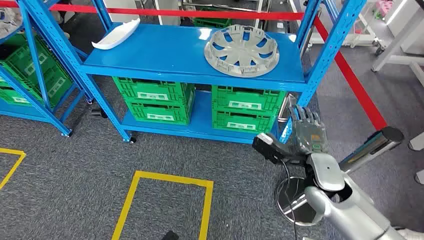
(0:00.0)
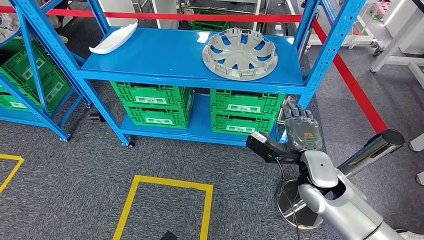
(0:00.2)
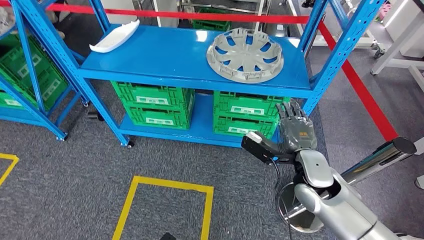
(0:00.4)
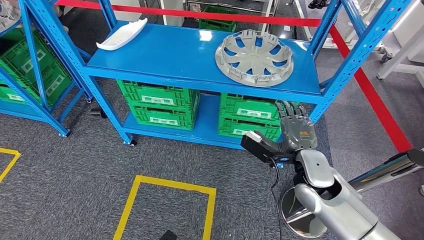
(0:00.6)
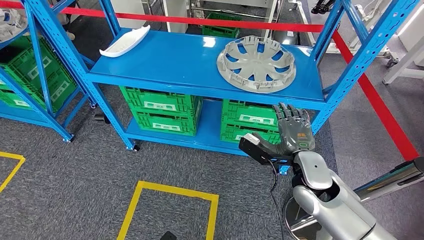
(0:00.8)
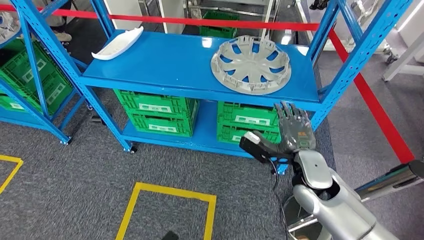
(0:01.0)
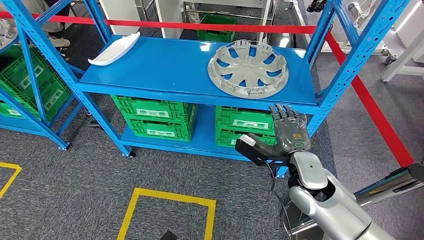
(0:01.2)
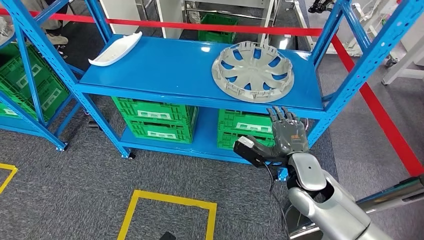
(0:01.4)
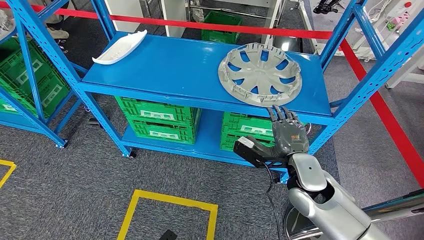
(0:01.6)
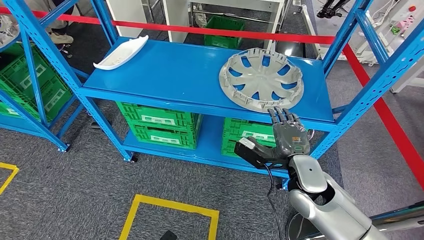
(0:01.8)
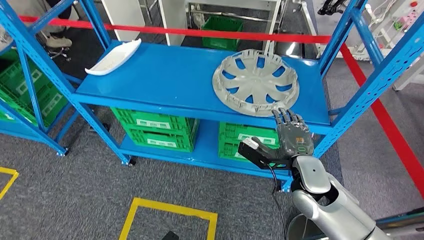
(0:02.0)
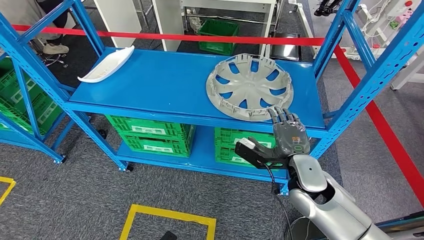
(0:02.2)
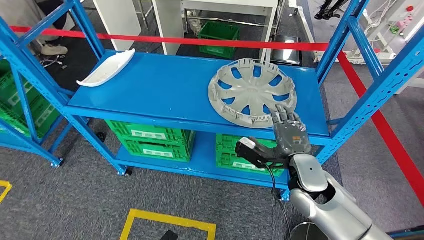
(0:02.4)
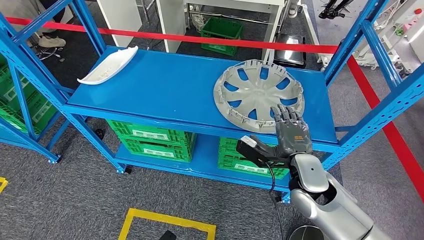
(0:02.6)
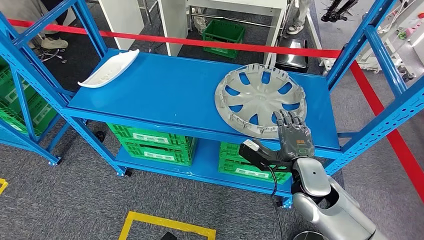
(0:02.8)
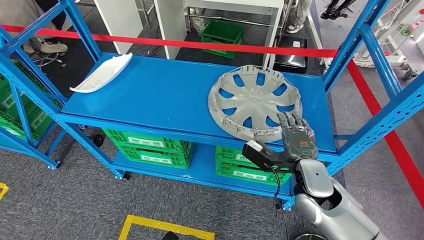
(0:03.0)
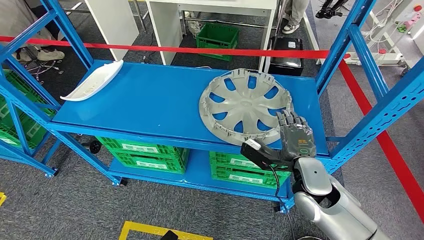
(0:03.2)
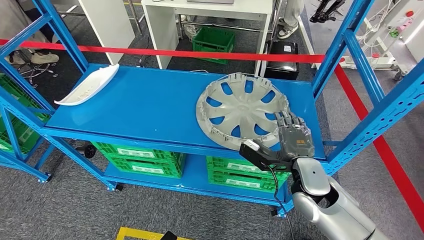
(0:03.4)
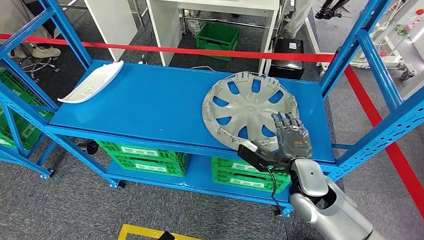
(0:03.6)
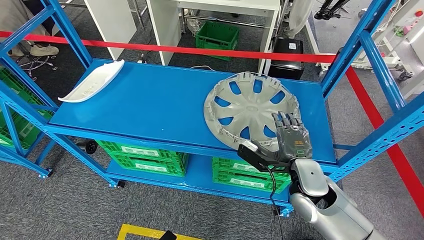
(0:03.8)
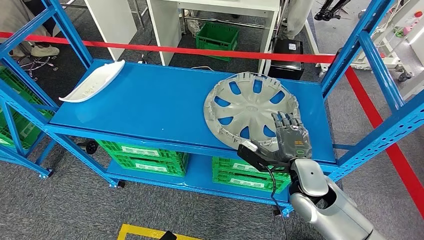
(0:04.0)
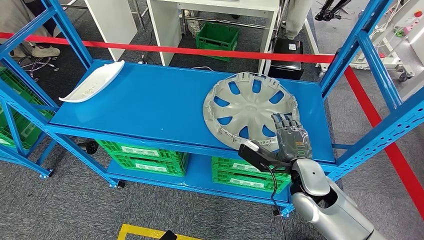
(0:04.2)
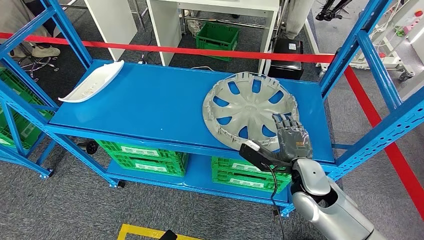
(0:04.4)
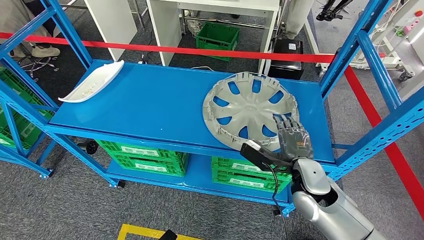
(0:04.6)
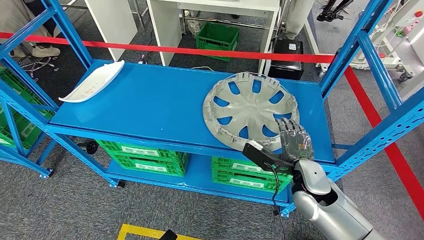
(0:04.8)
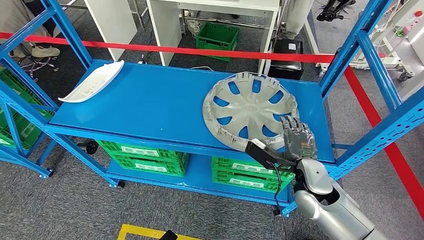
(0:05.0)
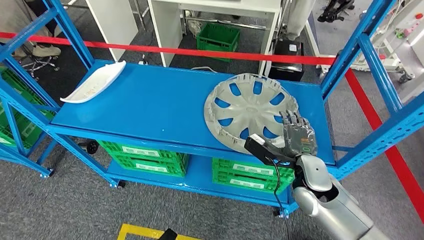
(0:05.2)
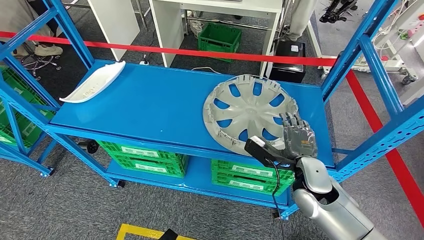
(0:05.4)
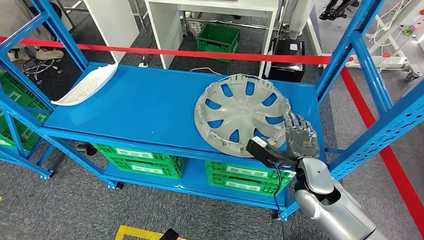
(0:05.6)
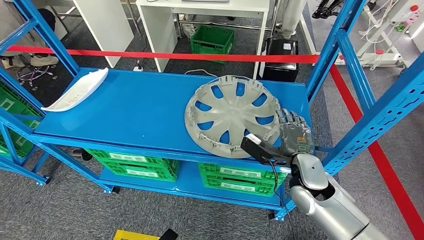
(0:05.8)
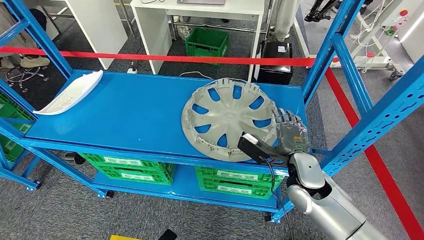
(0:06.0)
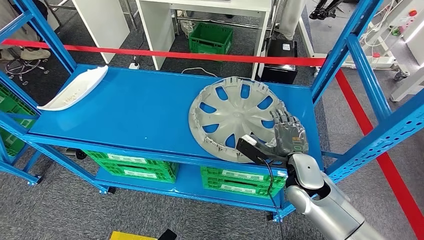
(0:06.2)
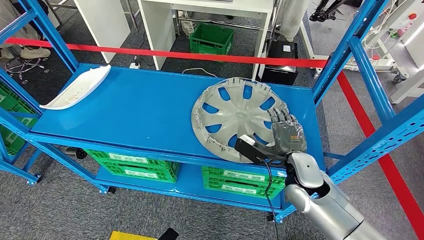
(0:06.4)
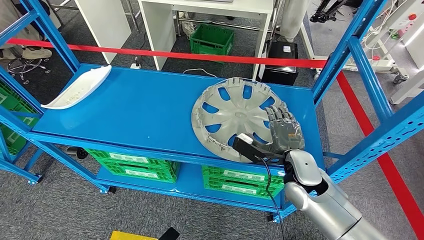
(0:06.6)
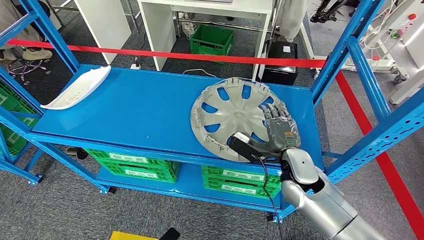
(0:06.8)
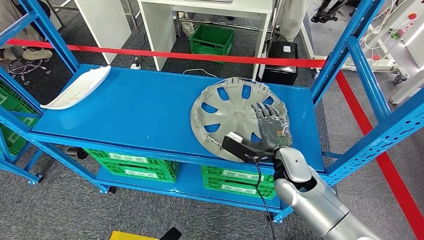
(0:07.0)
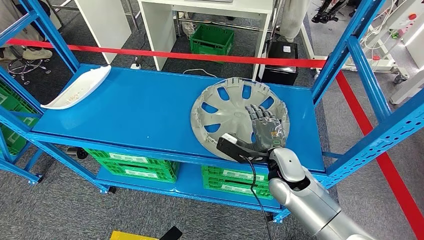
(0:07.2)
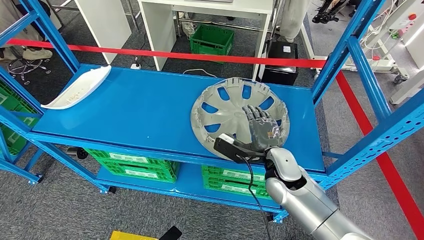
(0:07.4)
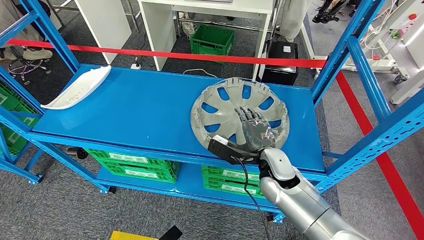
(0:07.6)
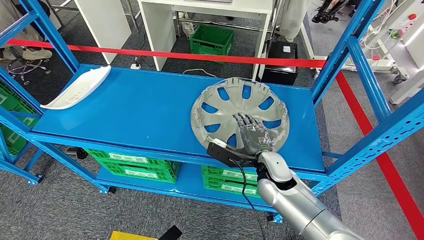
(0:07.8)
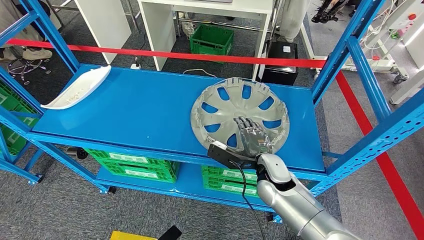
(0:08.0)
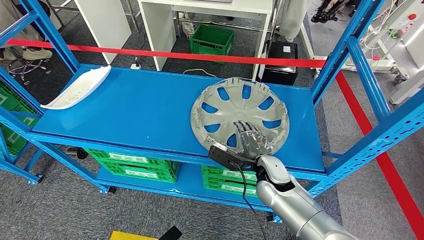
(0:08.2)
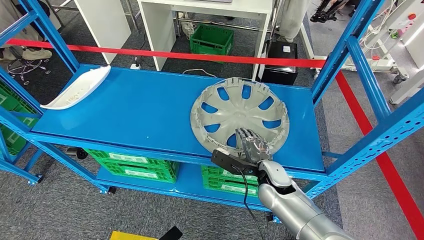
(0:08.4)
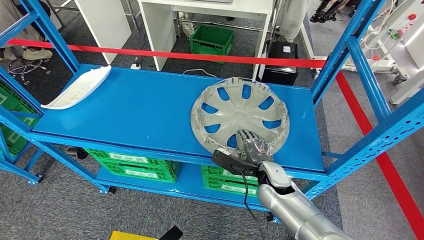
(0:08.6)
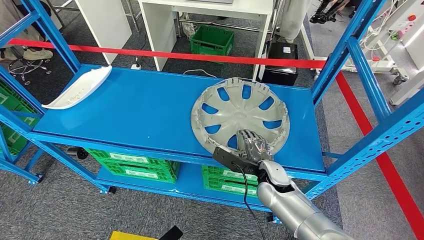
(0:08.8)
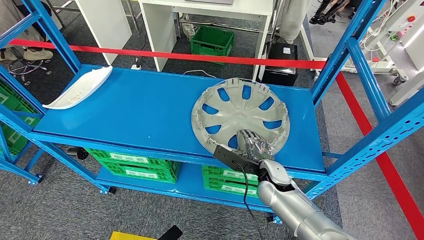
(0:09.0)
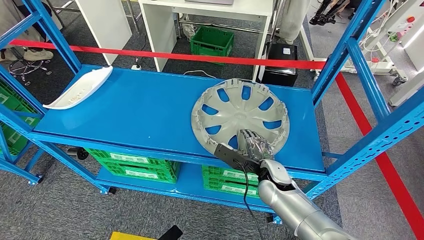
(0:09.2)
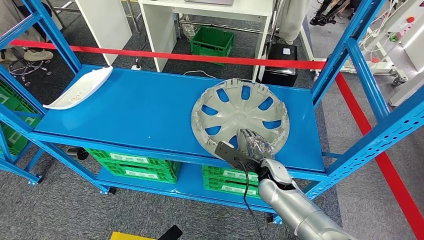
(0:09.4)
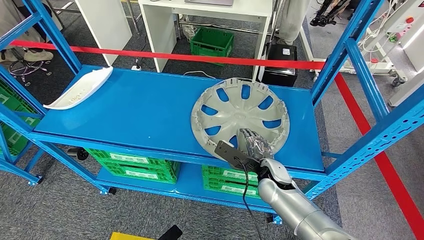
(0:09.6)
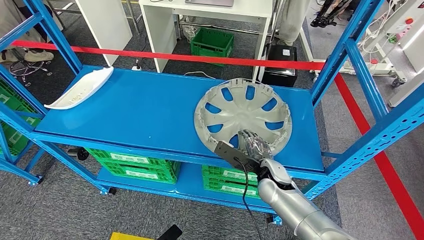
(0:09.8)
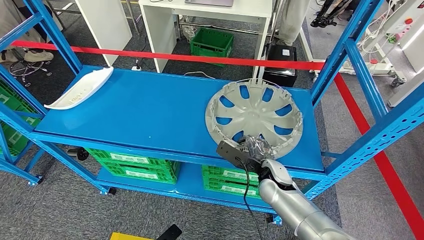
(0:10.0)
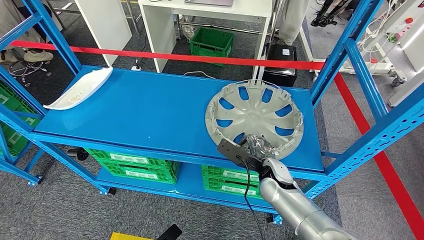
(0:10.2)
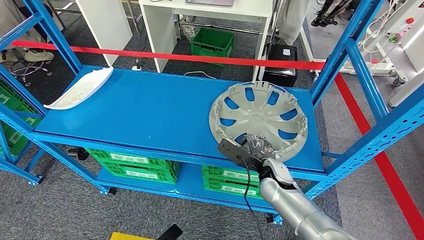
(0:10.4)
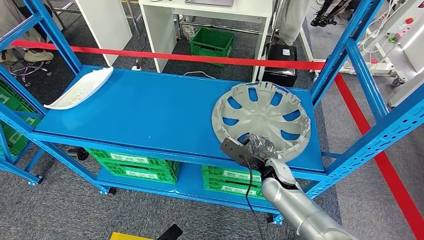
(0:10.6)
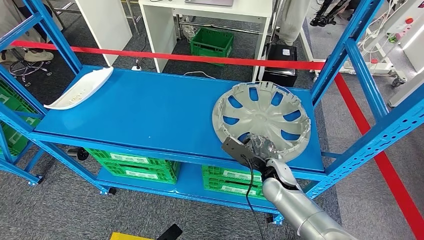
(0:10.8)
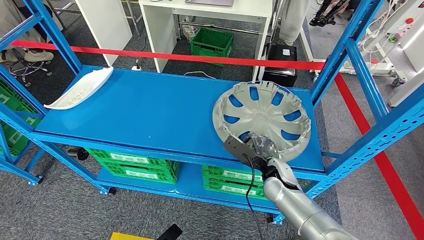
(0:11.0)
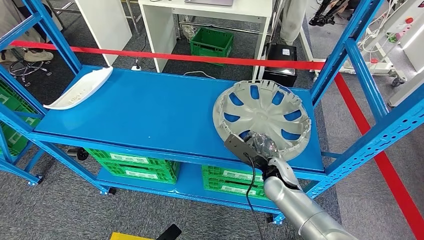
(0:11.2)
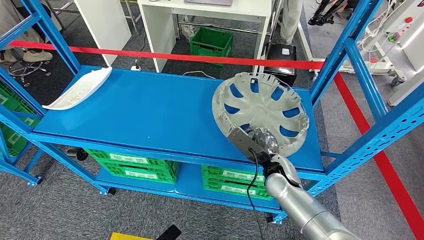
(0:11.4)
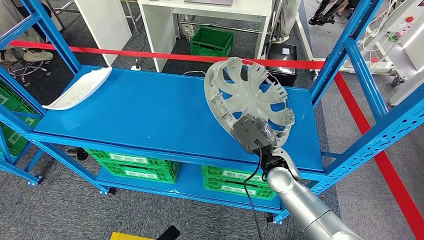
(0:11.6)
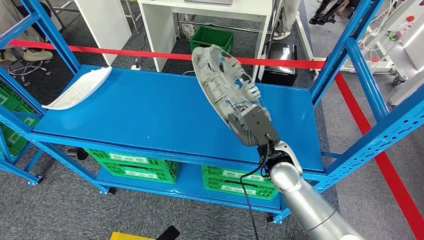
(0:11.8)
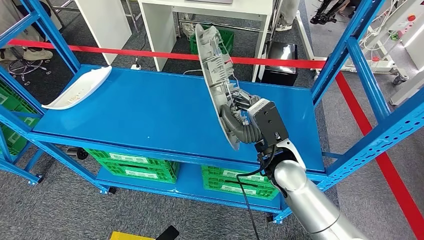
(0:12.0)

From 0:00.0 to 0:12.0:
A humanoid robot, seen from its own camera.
From 0:07.6 to 0:09.0: The right hand is displaced downward by about 5 cm.
From 0:09.0 to 0:10.4: The hands move only a little.

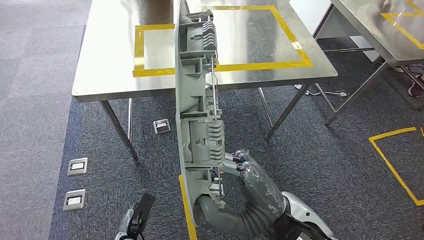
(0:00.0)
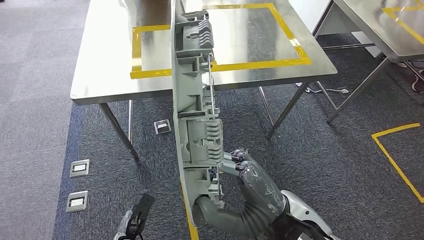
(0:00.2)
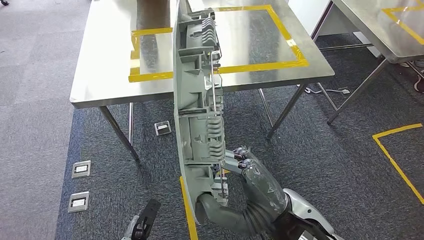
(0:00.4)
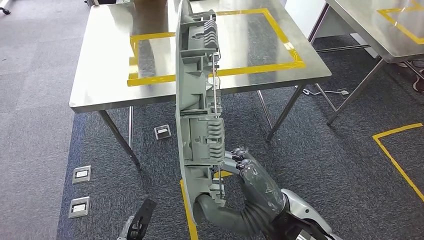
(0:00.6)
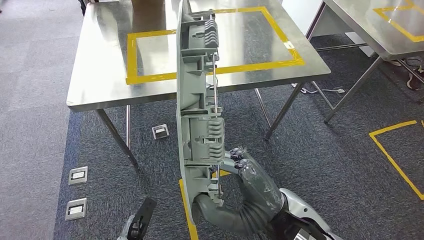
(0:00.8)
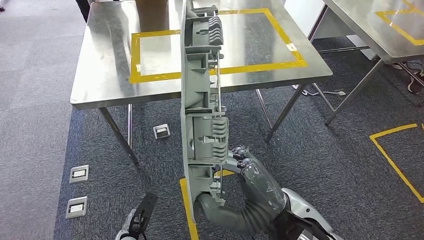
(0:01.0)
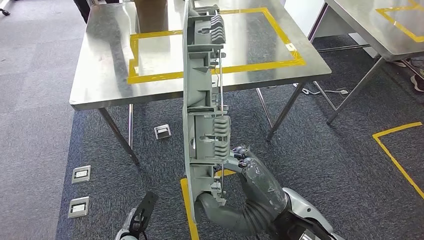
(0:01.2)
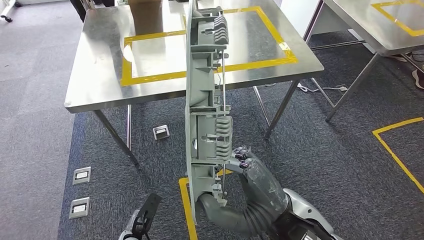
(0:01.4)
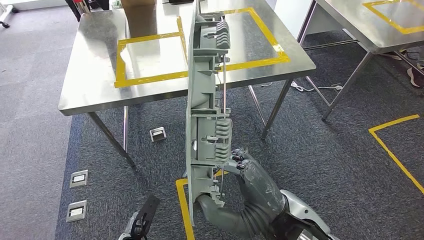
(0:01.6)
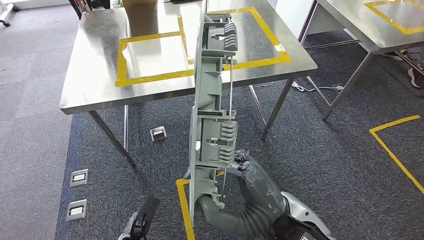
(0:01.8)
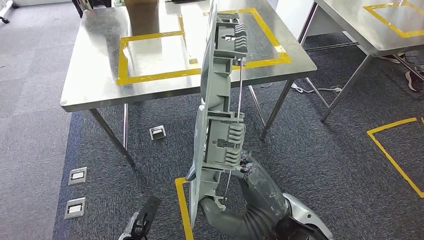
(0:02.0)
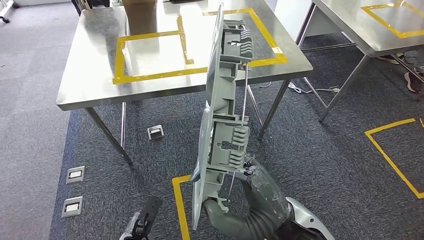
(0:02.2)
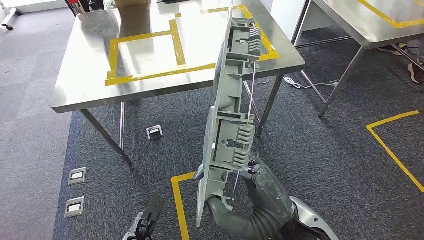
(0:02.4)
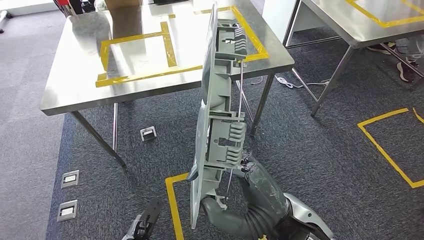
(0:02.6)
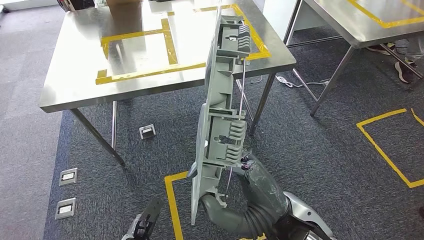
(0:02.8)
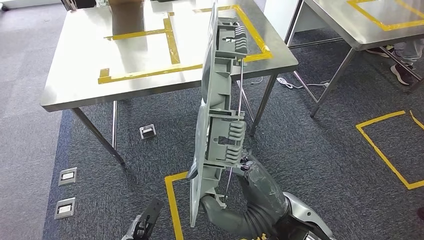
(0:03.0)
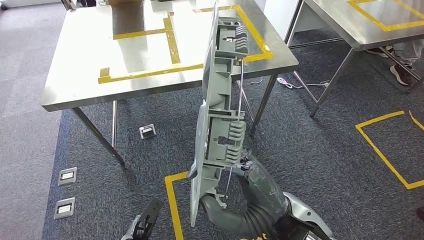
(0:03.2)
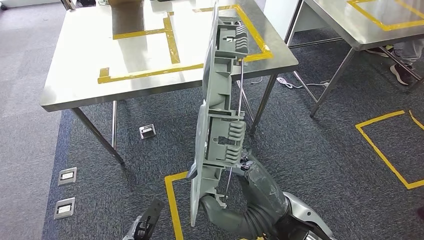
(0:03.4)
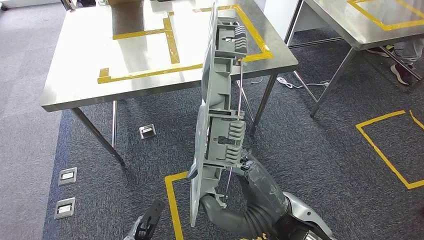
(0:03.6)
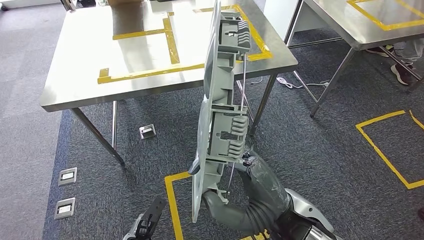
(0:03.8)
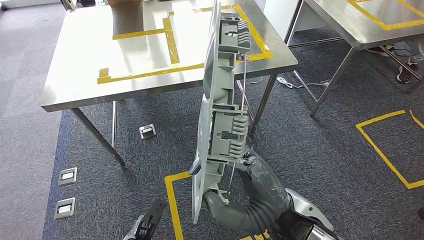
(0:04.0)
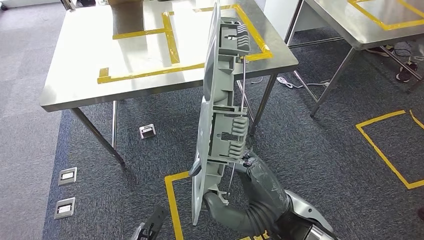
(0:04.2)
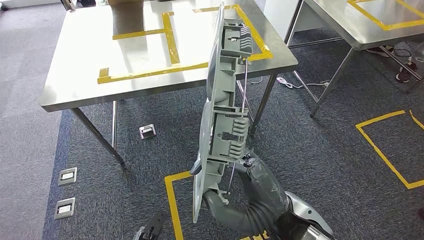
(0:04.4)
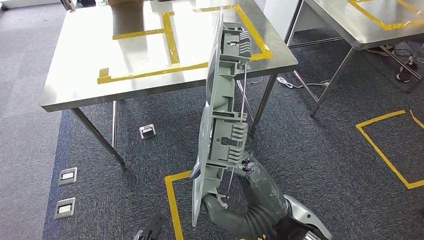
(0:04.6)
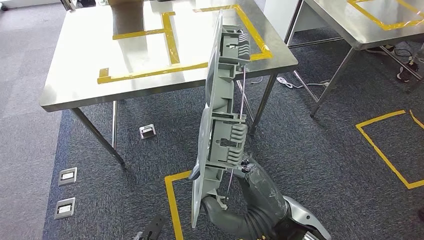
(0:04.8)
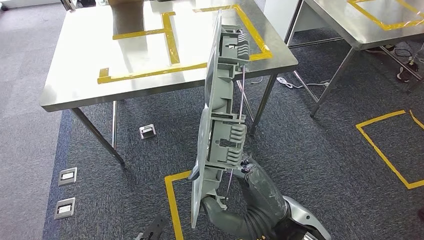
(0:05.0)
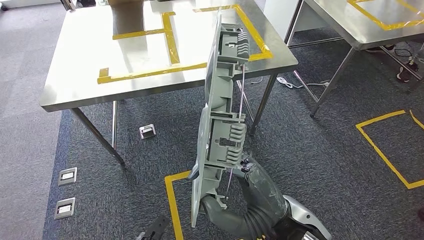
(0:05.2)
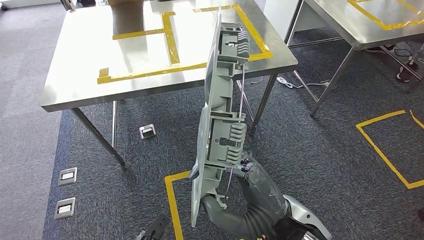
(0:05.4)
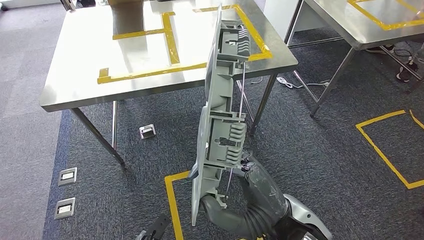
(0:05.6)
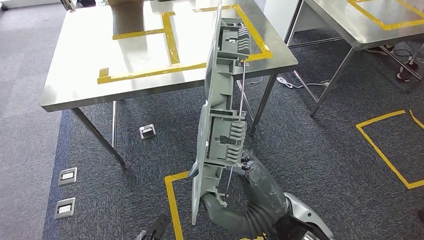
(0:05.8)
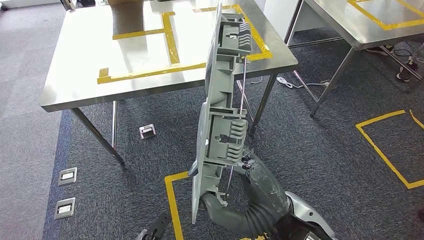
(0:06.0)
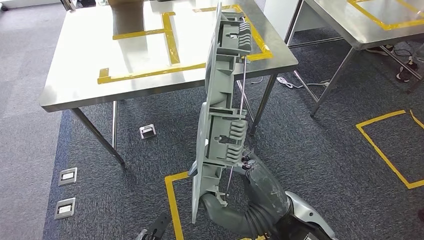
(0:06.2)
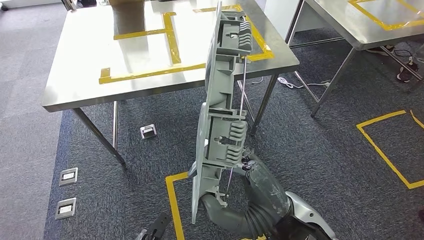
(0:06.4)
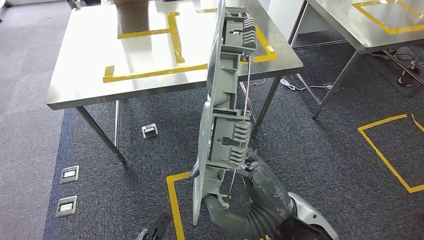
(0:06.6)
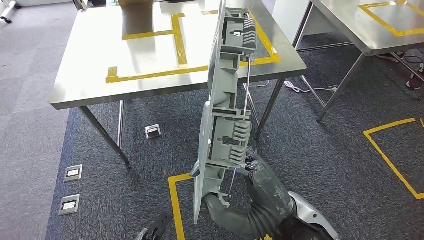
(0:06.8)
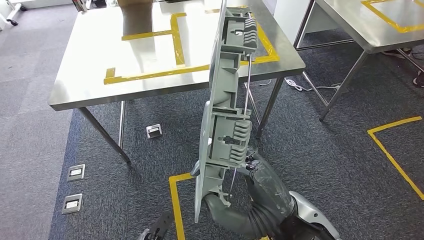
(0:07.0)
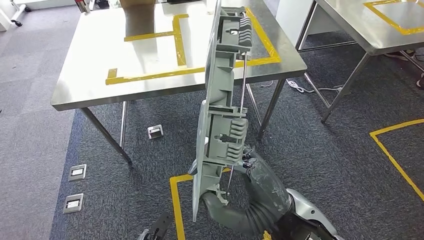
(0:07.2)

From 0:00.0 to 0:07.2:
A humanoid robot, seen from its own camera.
From 0:02.8 to 0:05.8: The hands make only small movements.
